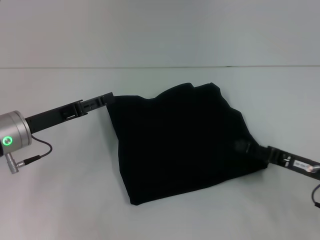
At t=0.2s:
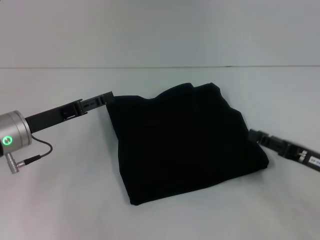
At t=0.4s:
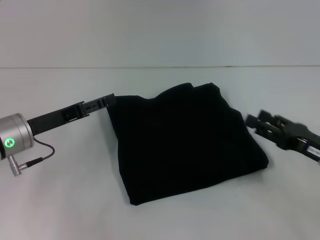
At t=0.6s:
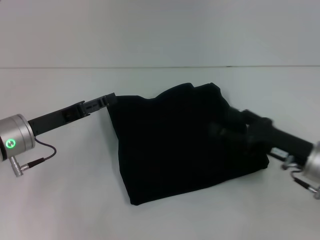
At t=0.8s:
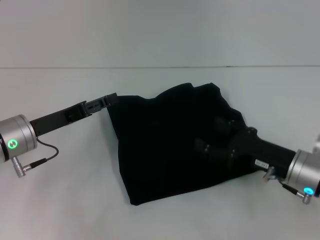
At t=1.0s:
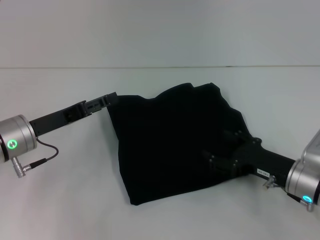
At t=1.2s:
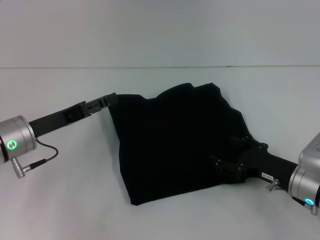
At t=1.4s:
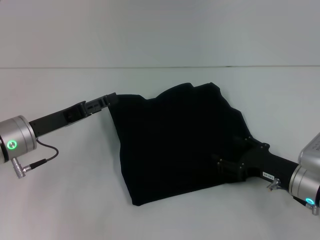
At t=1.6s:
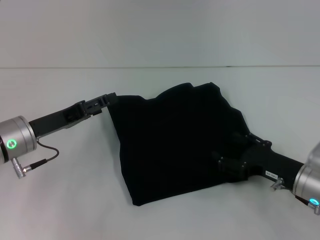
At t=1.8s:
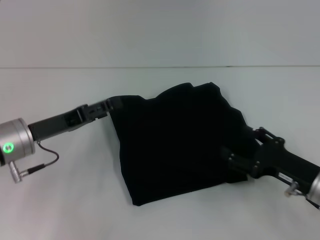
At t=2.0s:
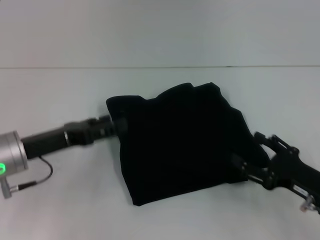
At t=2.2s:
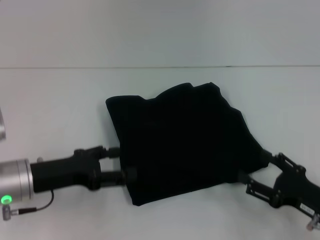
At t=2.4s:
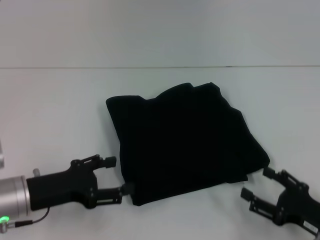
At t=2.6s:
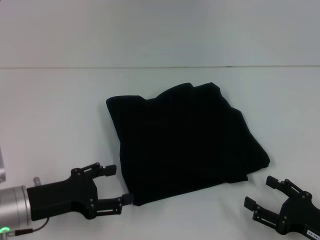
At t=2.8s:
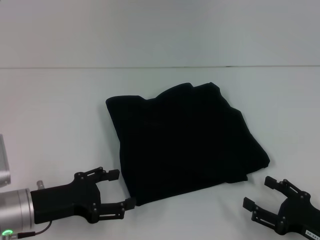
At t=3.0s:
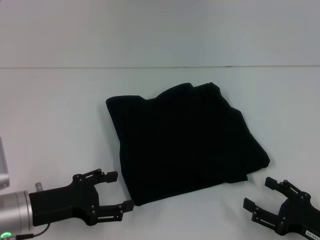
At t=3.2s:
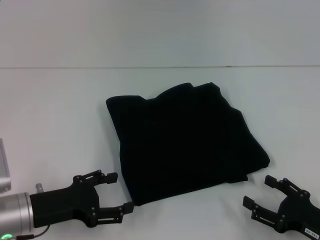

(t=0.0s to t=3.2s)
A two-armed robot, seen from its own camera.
t=0.0s - t=1.6s: The right gripper opens.
t=1.6s - t=3.2s: The two grippers go some 10 cm backward.
